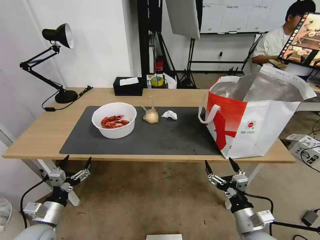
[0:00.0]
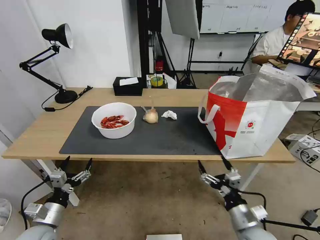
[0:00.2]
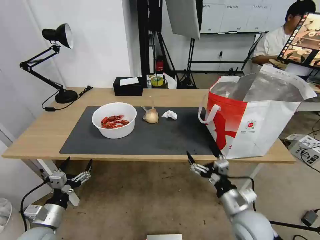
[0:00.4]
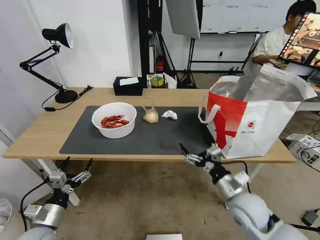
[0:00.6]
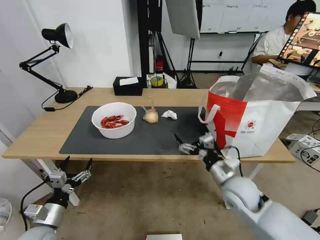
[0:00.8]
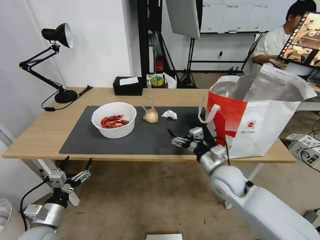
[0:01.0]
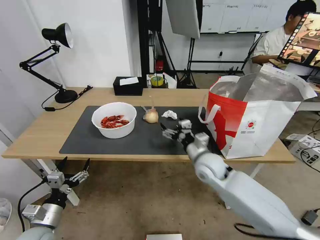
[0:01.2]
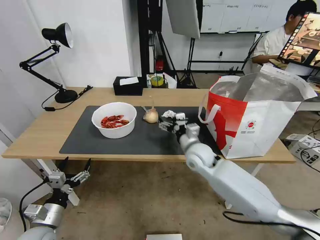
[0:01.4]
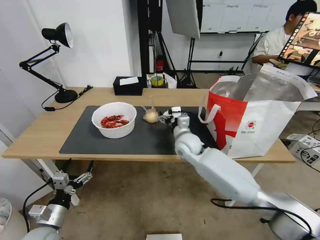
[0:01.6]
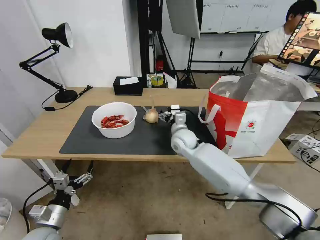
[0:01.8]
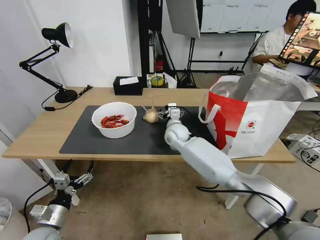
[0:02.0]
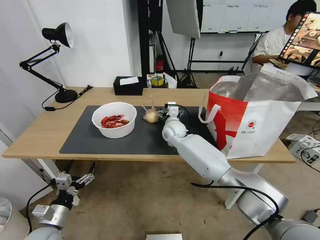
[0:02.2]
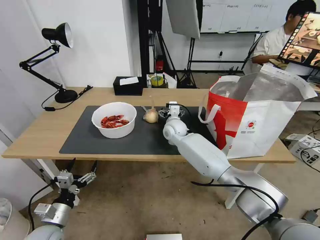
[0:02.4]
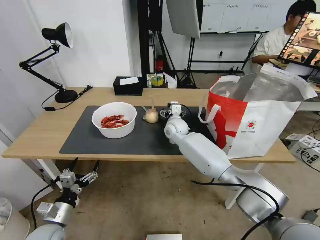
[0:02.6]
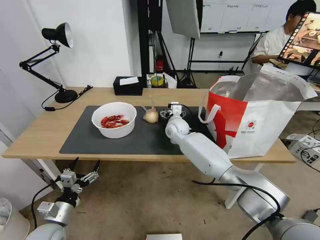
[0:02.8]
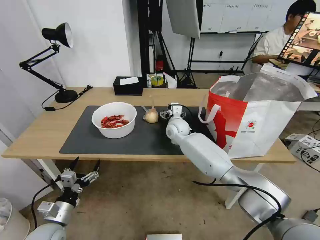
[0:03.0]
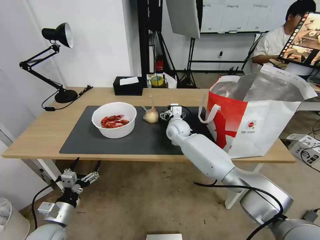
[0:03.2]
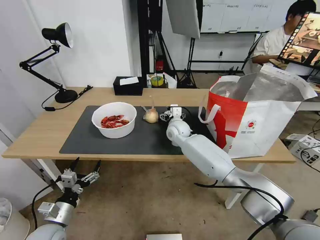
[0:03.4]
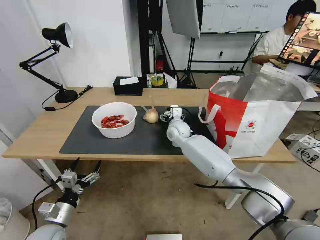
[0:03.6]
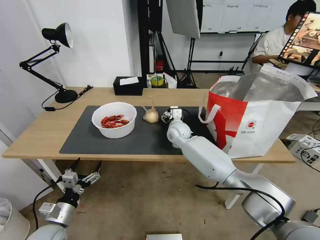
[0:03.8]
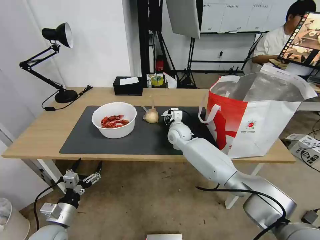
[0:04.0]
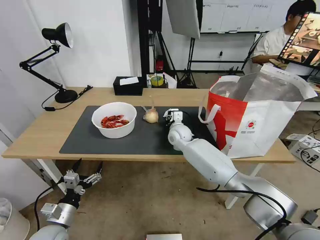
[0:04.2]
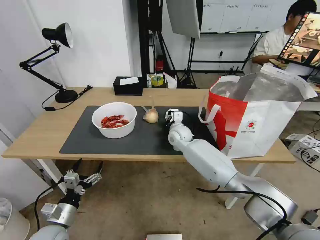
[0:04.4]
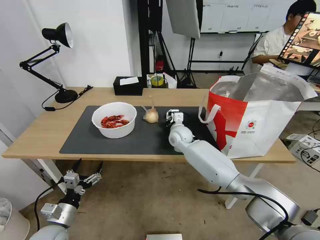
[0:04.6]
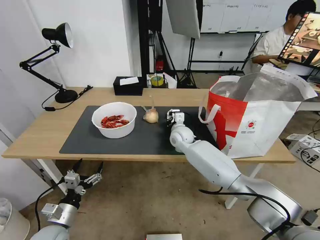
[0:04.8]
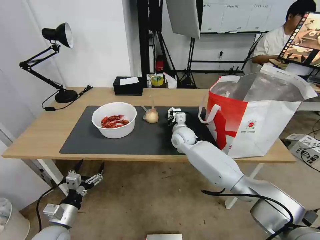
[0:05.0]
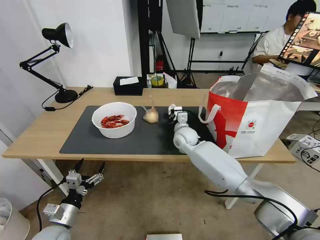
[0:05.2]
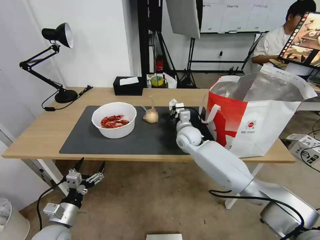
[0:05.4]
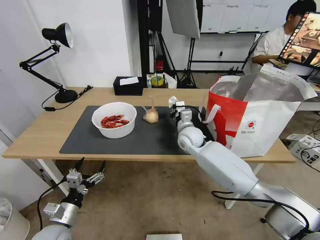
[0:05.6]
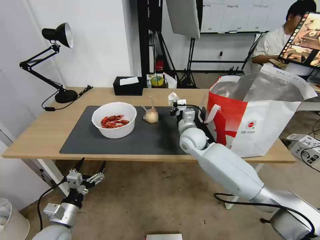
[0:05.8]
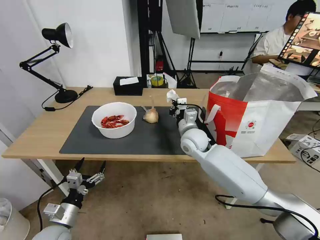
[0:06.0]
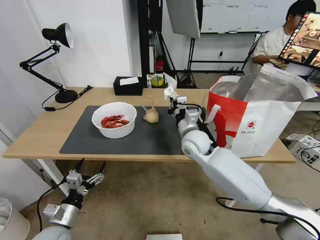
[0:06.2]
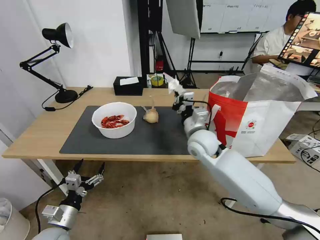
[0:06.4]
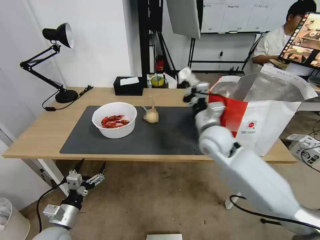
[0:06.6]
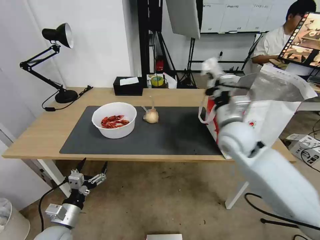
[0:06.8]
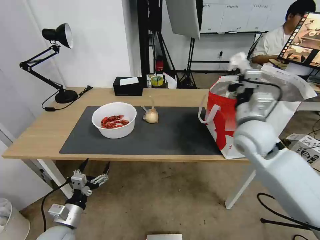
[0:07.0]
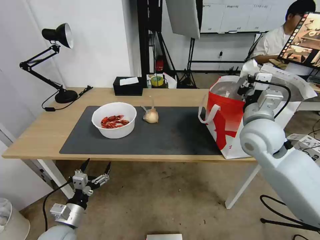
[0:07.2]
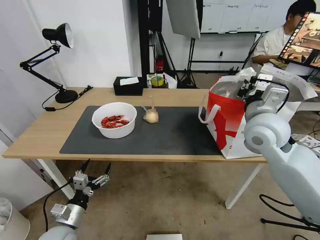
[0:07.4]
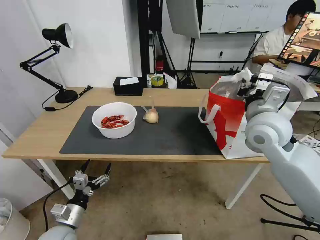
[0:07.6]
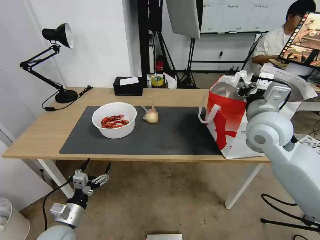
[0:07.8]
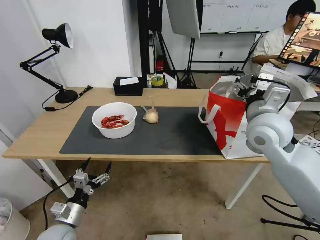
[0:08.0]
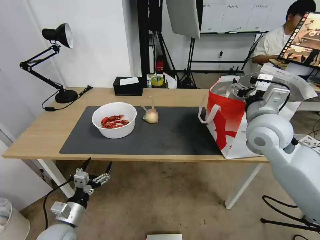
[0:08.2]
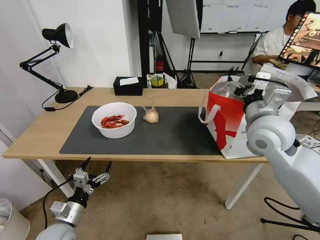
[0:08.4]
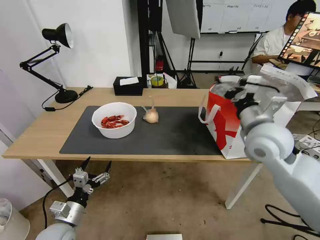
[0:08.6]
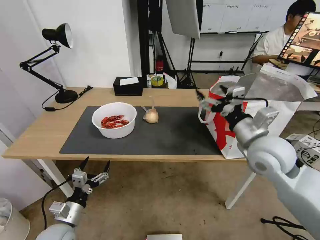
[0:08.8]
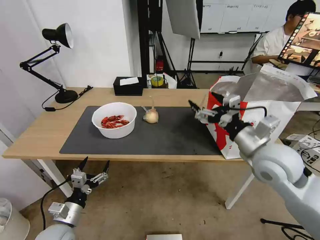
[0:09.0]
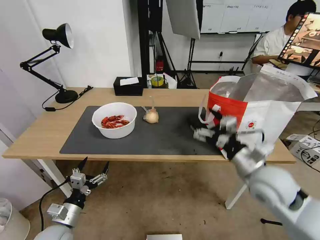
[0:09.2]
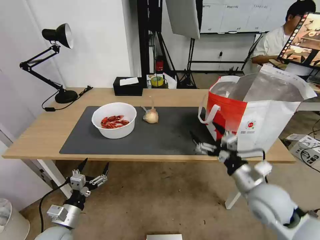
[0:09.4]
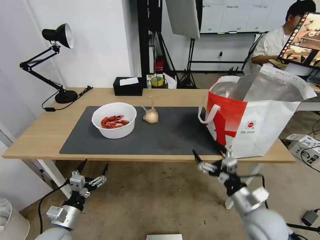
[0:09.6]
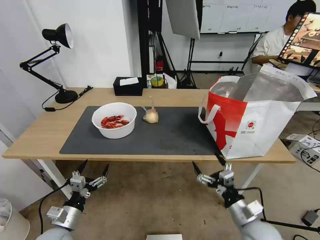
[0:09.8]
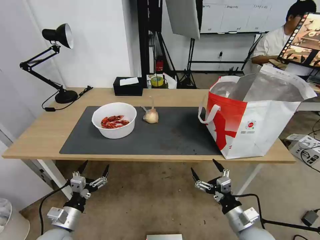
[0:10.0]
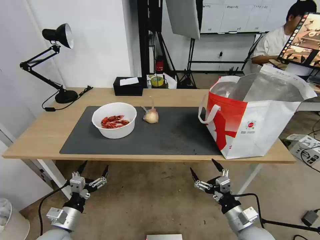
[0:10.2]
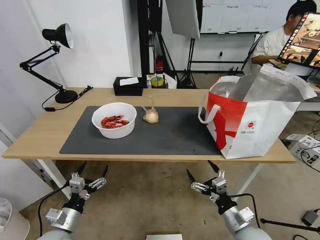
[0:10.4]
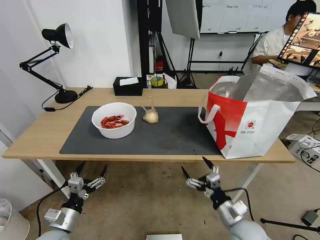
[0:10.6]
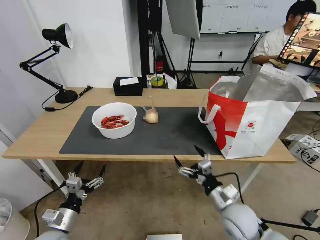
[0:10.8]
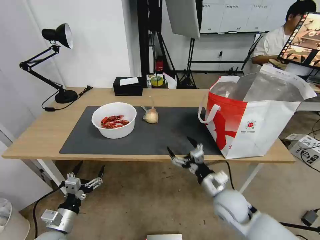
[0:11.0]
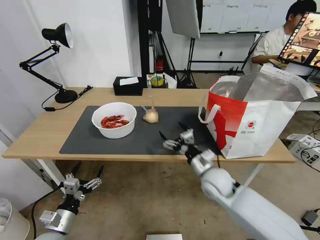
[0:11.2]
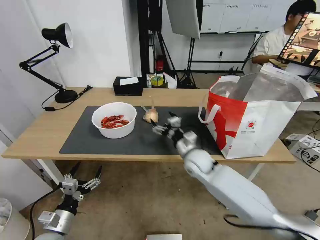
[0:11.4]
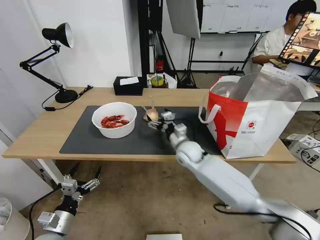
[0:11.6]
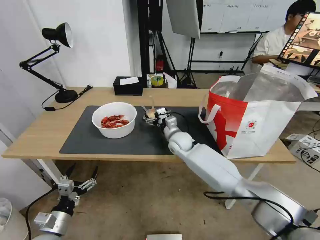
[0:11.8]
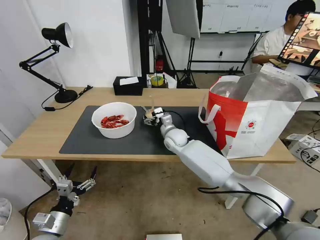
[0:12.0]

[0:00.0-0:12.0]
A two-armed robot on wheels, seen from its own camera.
Task of the whole recording: Pick up the trash from the table and place it into the takeout bag.
0:00.0 to 0:01.6: The right gripper is displaced forward and to the left by roughly 35 cm.
0:01.6 to 0:03.0: The right gripper moves forward, roughly 10 cm.
0:03.0 to 0:04.4: The right gripper closes.
0:04.4 to 0:06.0: The right gripper goes about 10 cm backward and upward.
0:06.0 to 0:07.6: The right gripper moves upward, to the right and backward, roughly 20 cm.
0:07.6 to 0:09.0: The right gripper heads backward, covering about 5 cm, and opens.
0:09.0 to 0:10.4: The right gripper moves downward and backward, about 25 cm.
0:10.4 to 0:12.0: The right gripper shifts some 40 cm forward and to the left.

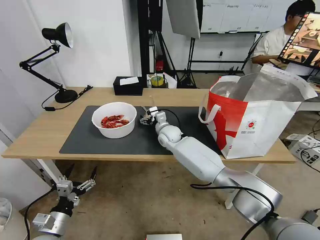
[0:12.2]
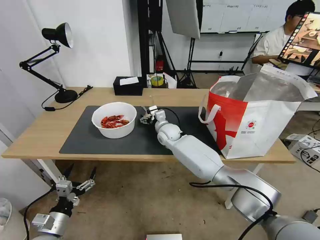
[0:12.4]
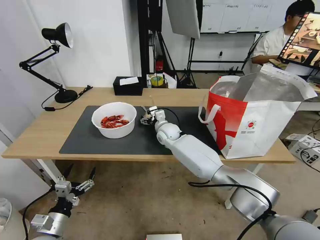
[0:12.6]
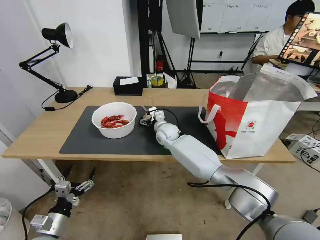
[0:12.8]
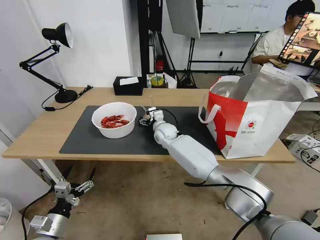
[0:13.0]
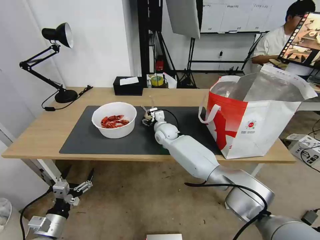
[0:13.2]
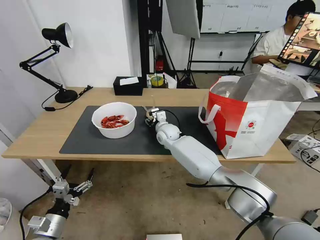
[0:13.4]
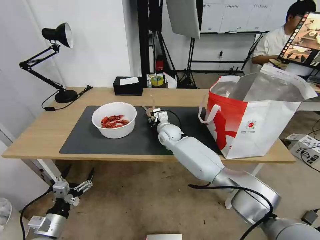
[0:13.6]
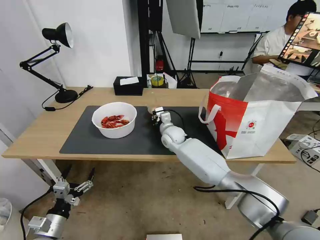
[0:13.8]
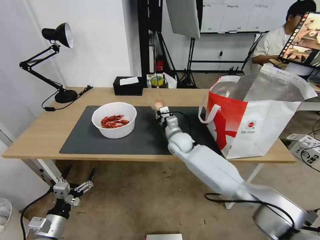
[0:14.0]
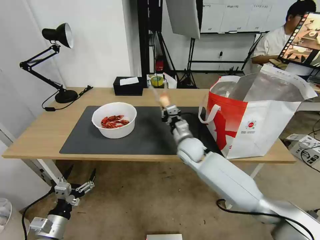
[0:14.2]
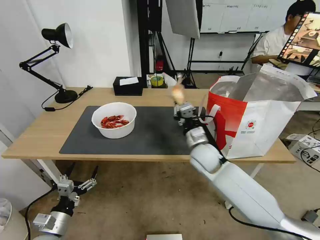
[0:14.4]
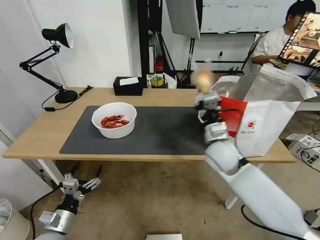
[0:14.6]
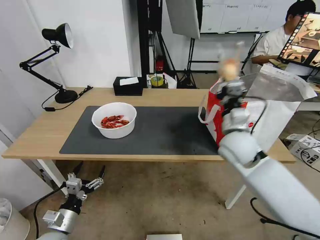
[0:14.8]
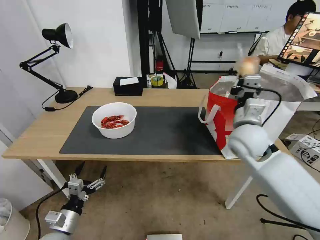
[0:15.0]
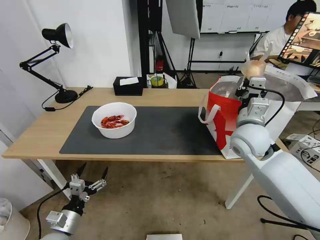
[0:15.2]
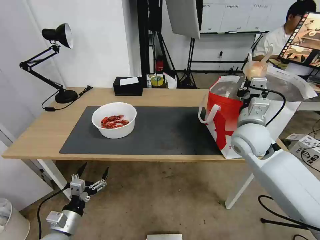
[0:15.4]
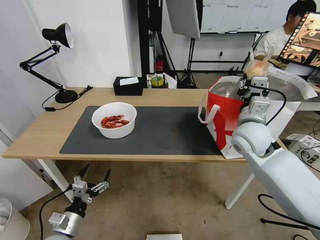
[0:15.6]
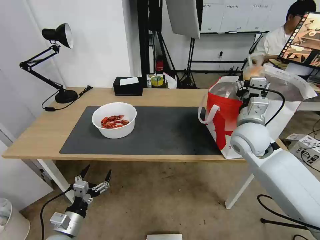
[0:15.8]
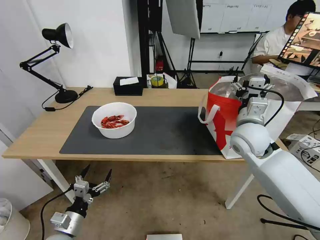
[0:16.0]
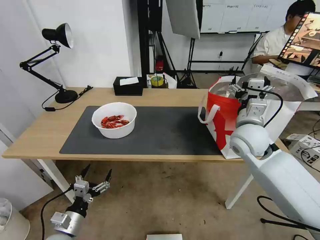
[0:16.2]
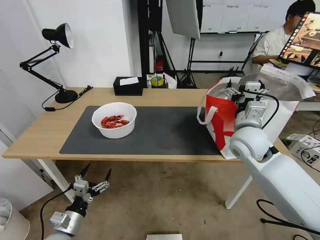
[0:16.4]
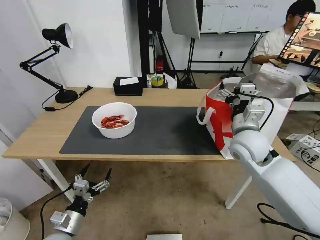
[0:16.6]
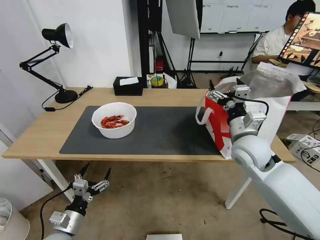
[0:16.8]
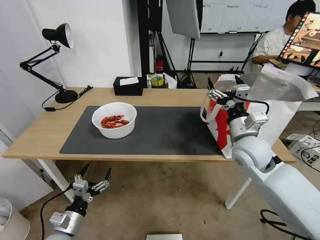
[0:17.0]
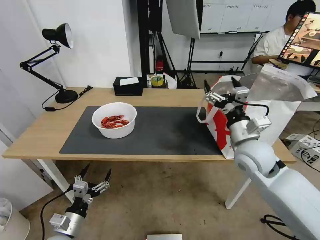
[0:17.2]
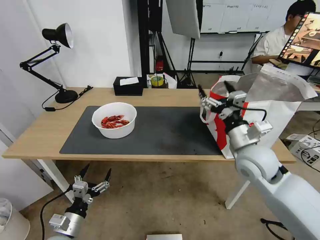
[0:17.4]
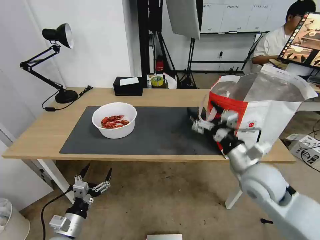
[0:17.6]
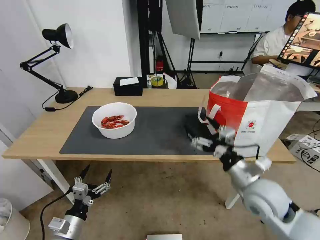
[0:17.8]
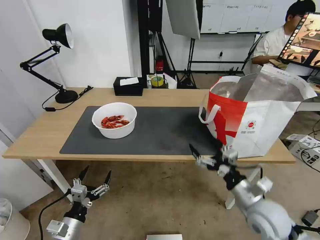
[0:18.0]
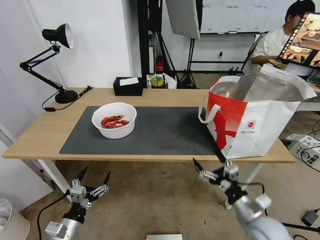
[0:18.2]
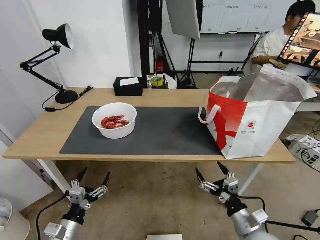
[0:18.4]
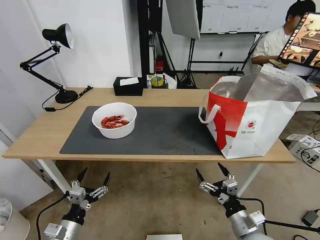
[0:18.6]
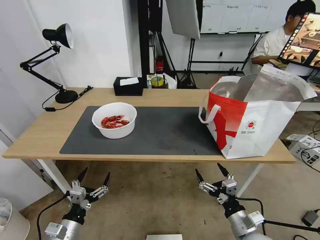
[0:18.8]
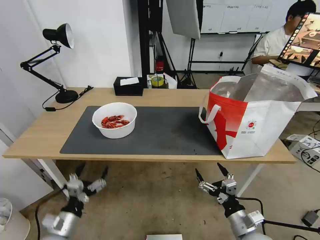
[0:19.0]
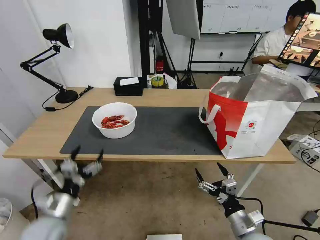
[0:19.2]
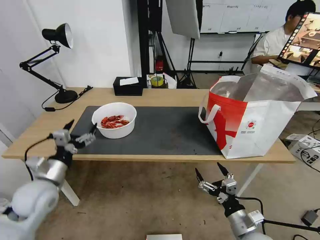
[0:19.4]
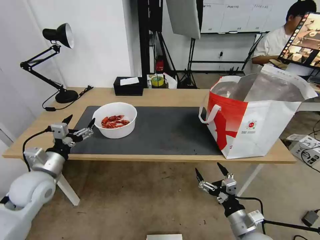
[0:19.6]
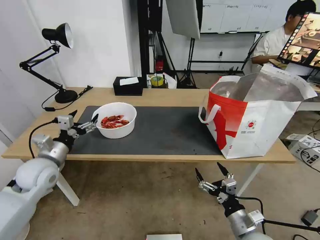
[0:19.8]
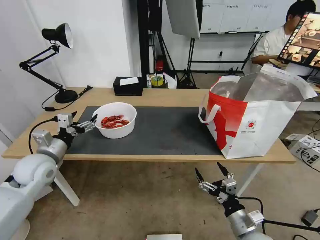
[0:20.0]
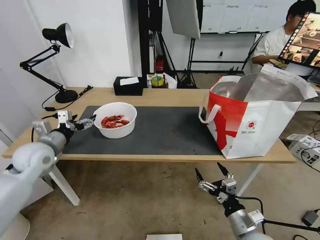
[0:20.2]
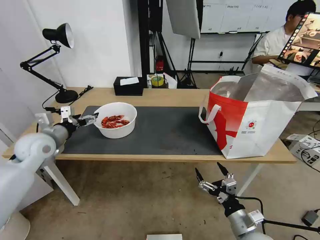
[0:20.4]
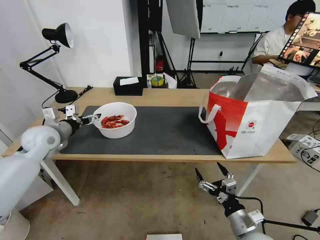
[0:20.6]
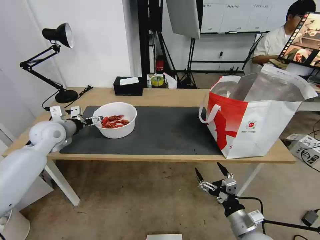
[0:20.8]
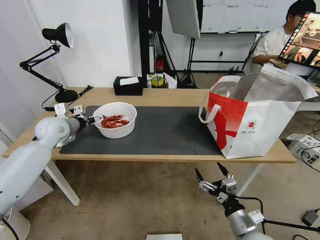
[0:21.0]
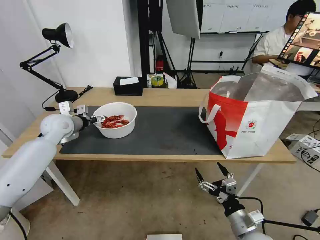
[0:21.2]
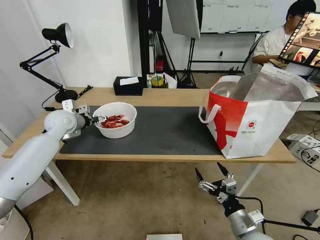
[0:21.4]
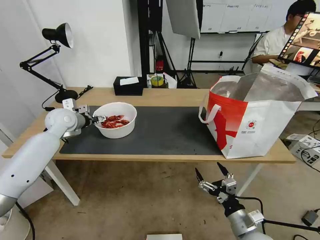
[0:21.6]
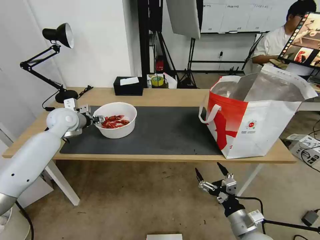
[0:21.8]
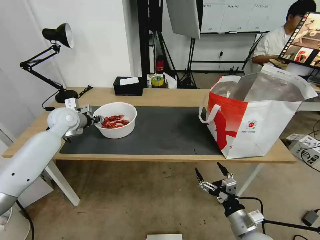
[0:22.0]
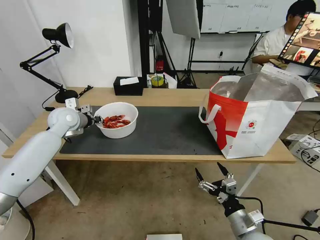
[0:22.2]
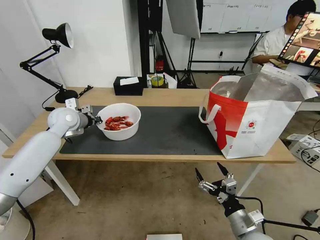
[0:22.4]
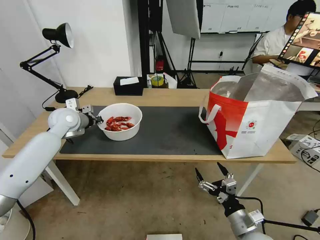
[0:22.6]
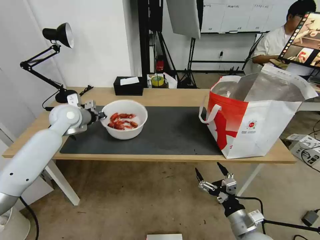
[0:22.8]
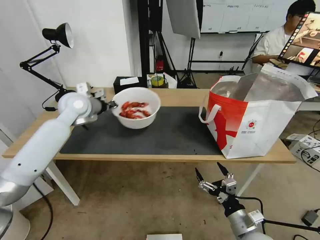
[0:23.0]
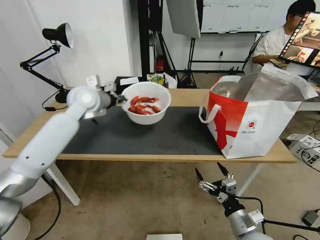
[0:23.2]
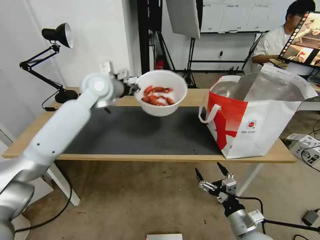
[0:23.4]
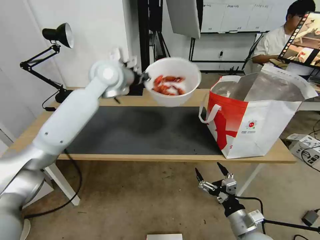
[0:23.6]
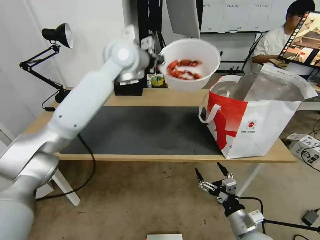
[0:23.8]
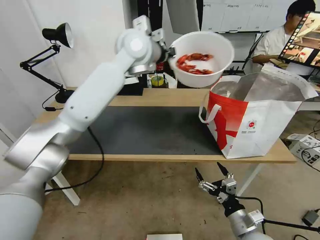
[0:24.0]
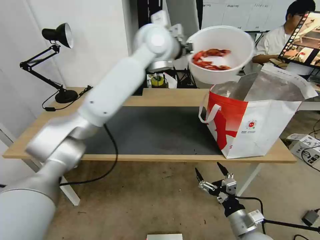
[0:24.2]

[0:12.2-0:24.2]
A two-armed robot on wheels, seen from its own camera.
Task of the whole recording: Pick up the trash from the table and place it into the takeout bag.
0:12.2 to 0:13.8: The right gripper closes its fingers.
0:13.8 to 0:15.2: The right gripper is displaced to the right, upward and backward by about 30 cm.
0:15.2 to 0:16.6: The right gripper opens.
0:16.6 to 0:18.2: The right gripper shifts some 25 cm backward and downward.
0:18.2 to 0:19.8: The left gripper moves forward and upward, some 25 cm; the right gripper changes place by approximately 5 cm.
0:19.8 to 0:21.2: The left gripper heads forward, covering roughly 15 cm.
0:21.2 to 0:22.6: The left gripper closes its fingers.
0:22.6 to 0:24.2: The left gripper shifts roughly 40 cm to the right and upward.
